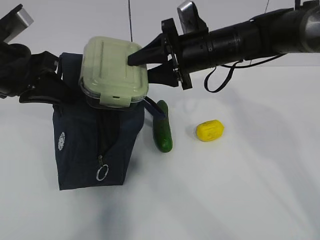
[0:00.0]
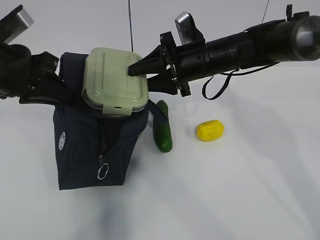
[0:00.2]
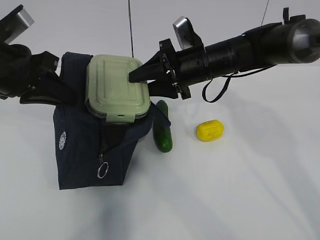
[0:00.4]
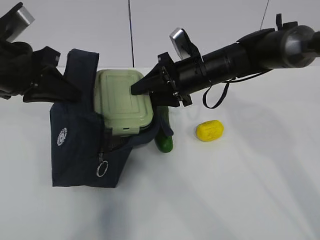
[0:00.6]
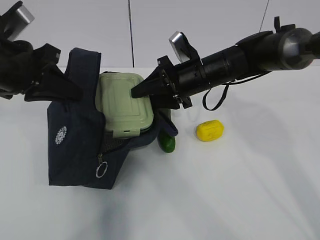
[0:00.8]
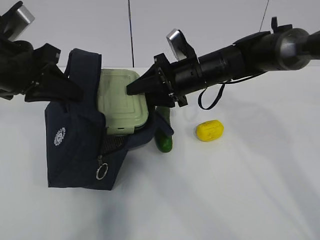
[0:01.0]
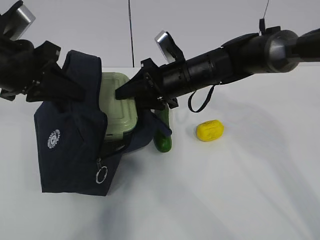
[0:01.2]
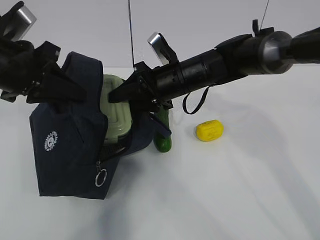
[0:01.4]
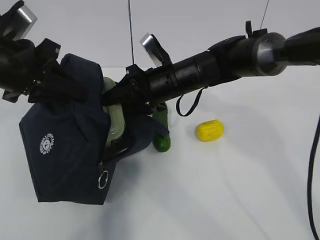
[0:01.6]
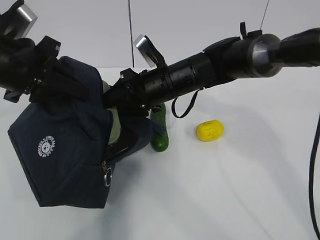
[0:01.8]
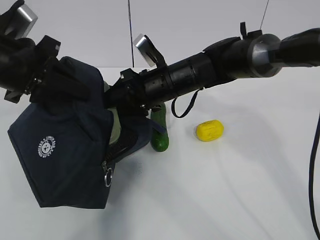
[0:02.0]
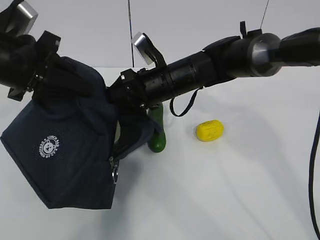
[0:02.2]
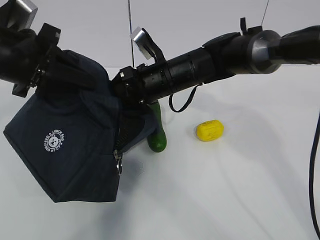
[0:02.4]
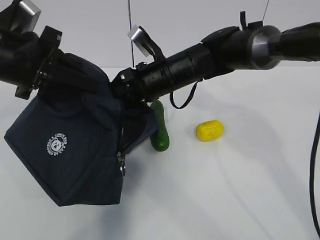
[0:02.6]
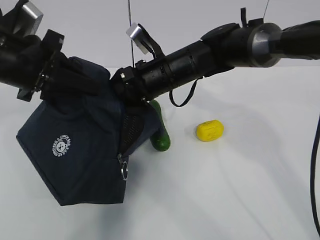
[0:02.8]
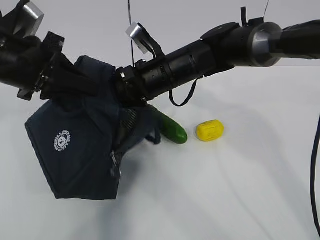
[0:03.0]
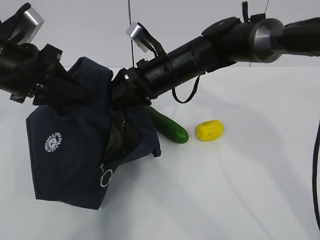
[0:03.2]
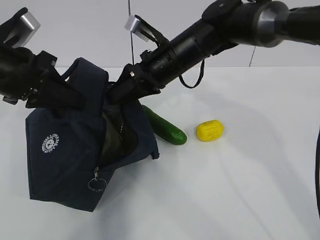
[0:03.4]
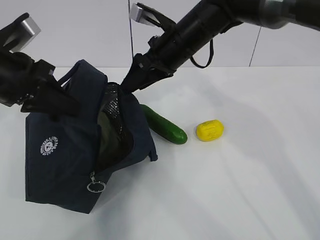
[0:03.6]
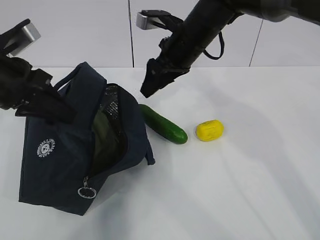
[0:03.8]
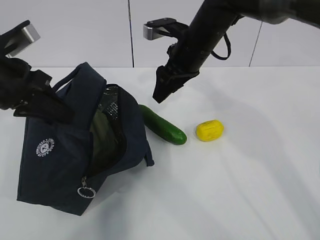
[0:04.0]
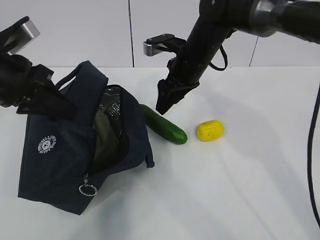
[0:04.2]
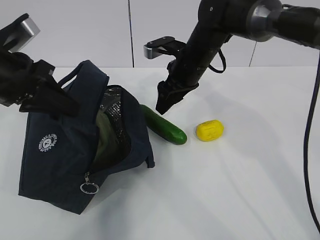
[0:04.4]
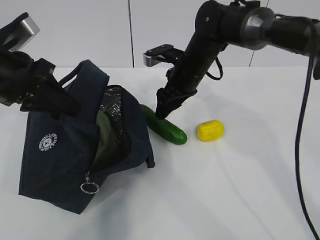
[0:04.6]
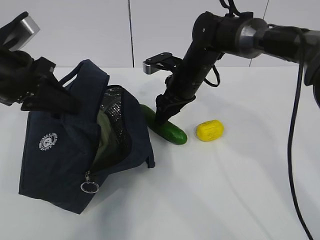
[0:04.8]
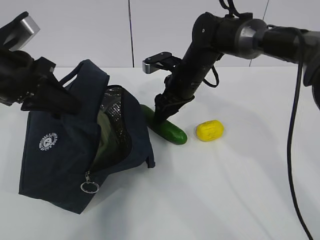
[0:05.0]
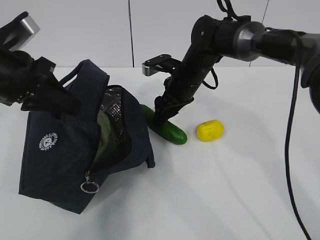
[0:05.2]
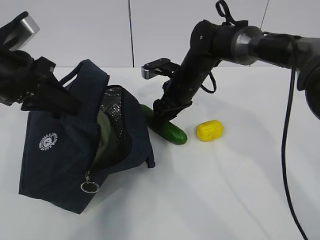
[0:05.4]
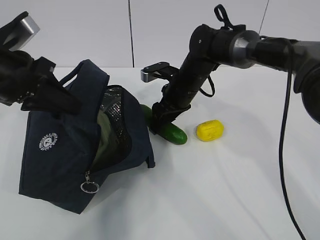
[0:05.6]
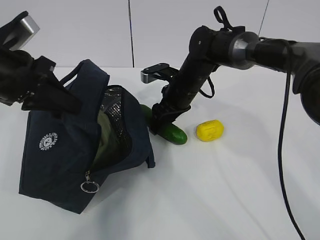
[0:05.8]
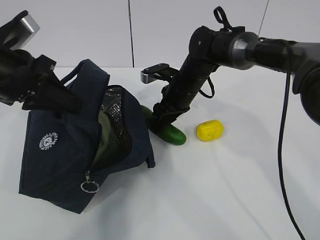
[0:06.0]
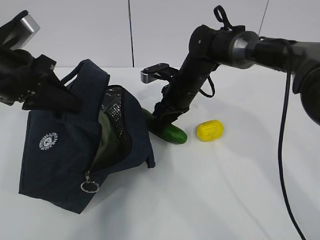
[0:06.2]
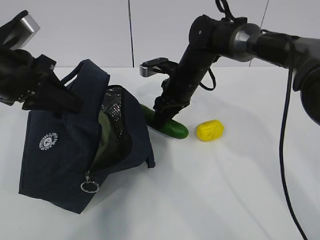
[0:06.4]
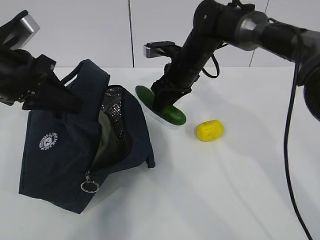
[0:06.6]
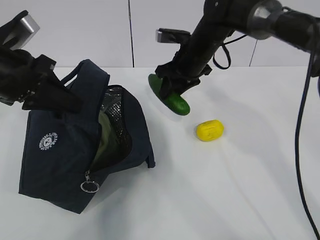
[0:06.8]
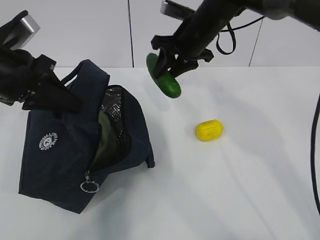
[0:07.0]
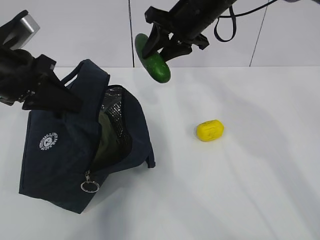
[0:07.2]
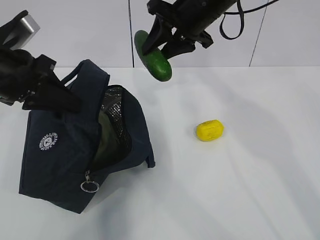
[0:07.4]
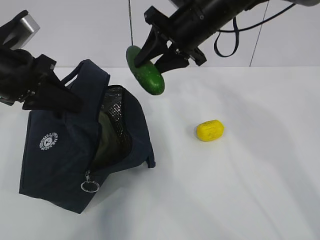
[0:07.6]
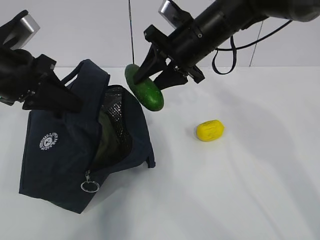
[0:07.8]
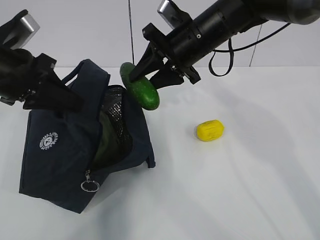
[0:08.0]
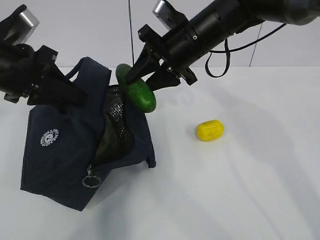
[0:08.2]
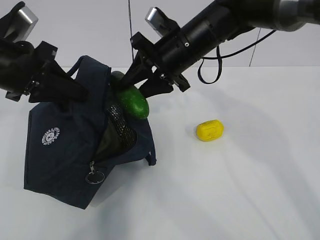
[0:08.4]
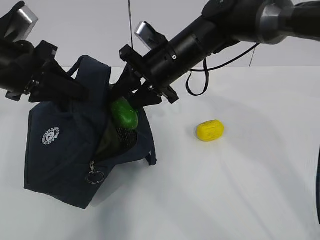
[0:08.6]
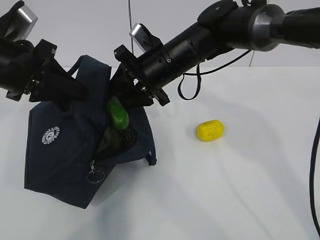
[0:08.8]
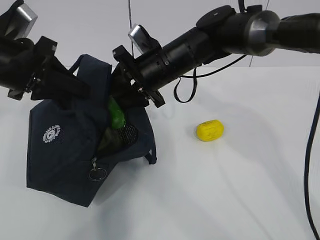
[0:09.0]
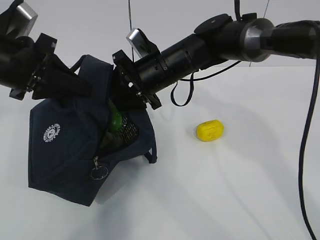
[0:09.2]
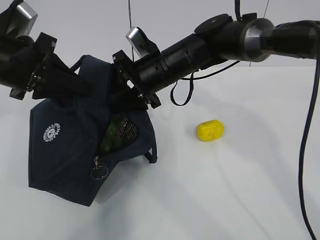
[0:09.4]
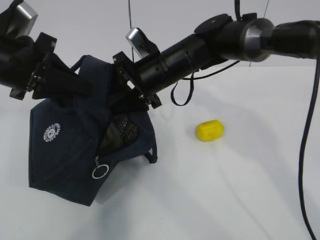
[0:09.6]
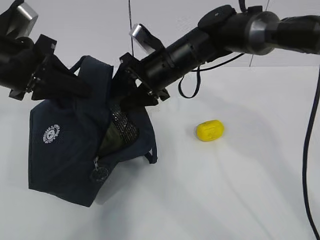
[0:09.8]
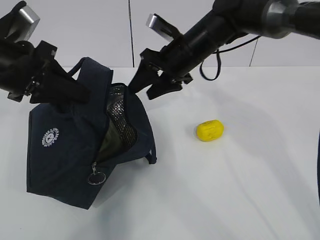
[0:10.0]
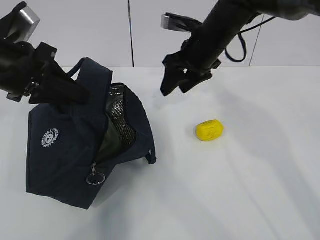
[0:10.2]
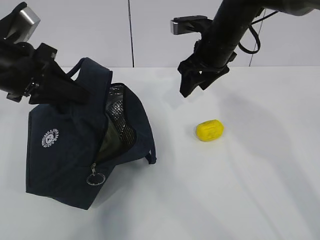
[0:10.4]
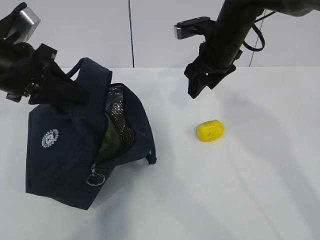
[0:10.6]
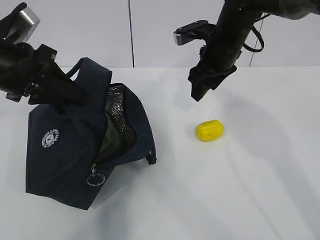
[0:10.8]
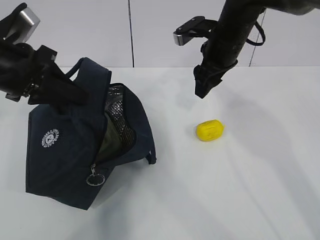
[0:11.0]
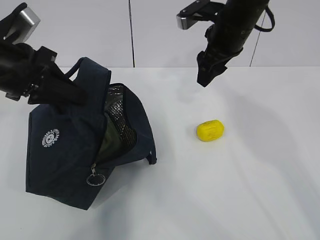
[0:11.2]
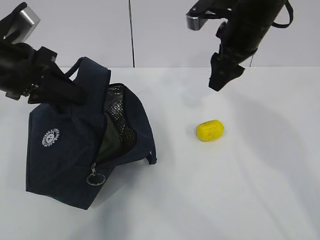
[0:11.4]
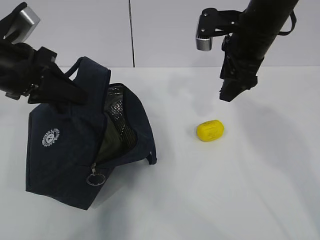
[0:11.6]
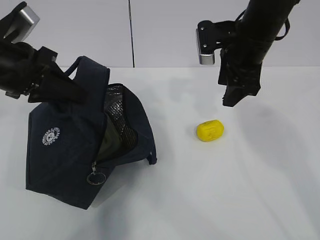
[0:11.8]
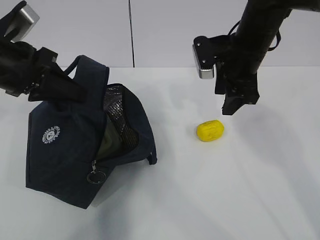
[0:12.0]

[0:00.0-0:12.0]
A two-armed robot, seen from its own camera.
Step, 0:00.0 to 0:01.8: Grab the cucumber with your right hand.
Step, 0:02.0 to 0:04.8: Place it into the bag with your right hand.
Step, 0:05.0 to 0:08.2: Grab the lemon with your right hand.
0:00.0 to 0:01.6: The right gripper shifts roughly 10 cm to the left and downward.
0:01.6 to 0:03.0: The grippers stay close to where they were, moving slightly.
0:03.0 to 0:04.4: The right gripper is displaced forward and to the right by some 5 cm.
0:04.4 to 0:06.0: The right gripper travels downward by some 5 cm.
0:06.0 to 0:07.6: The right gripper moves upward, some 15 cm.
0:07.6 to 0:09.0: The right gripper heads downward and to the left, covering roughly 10 cm.
0:09.0 to 0:10.4: The right gripper goes about 10 cm to the right.

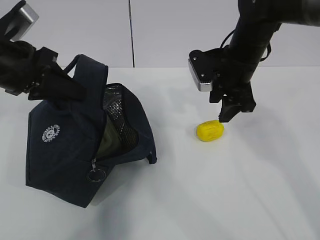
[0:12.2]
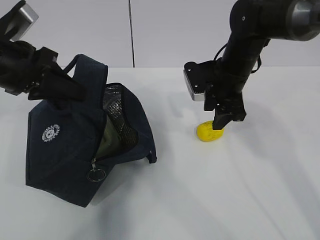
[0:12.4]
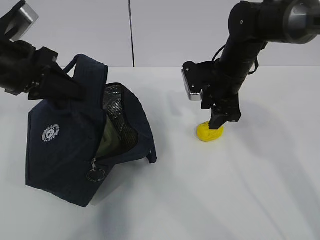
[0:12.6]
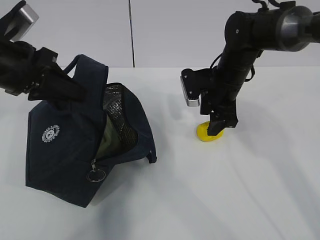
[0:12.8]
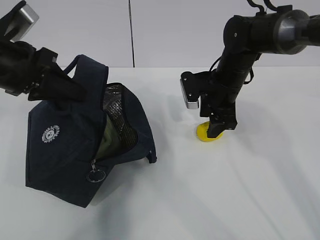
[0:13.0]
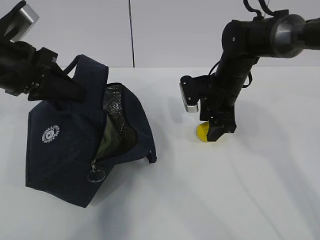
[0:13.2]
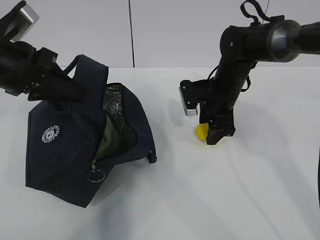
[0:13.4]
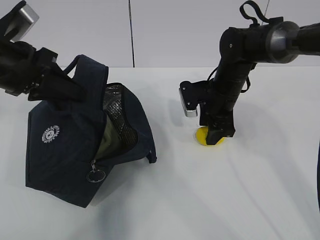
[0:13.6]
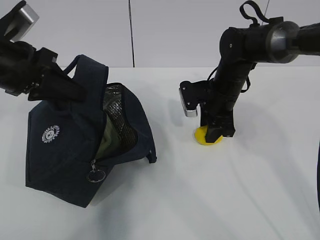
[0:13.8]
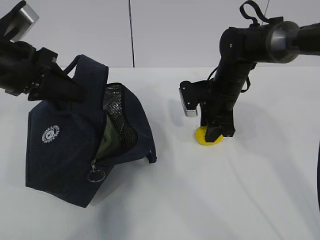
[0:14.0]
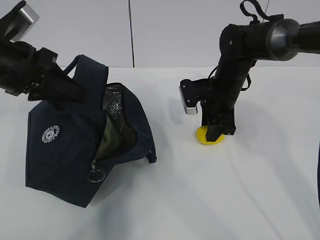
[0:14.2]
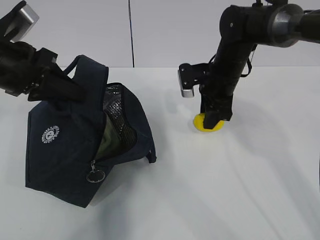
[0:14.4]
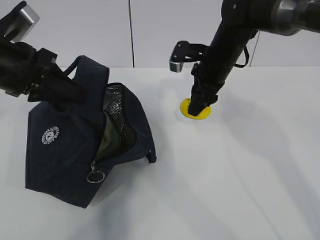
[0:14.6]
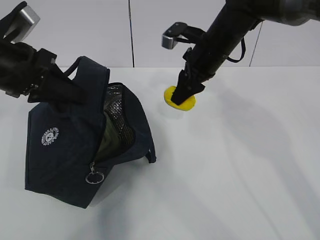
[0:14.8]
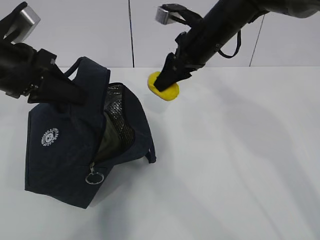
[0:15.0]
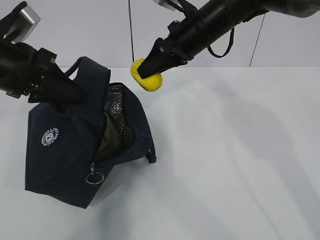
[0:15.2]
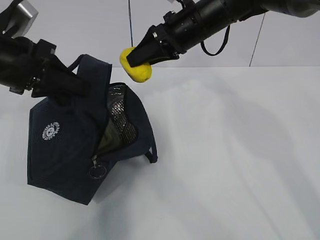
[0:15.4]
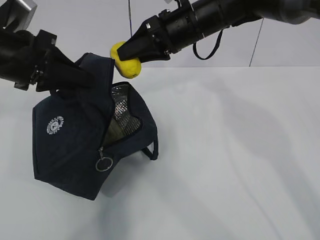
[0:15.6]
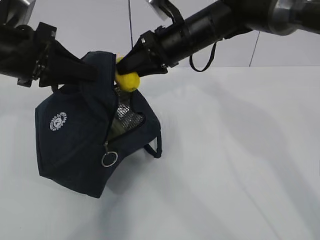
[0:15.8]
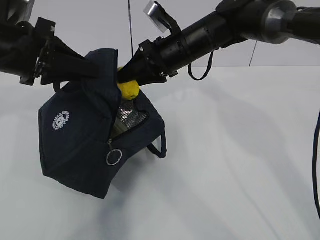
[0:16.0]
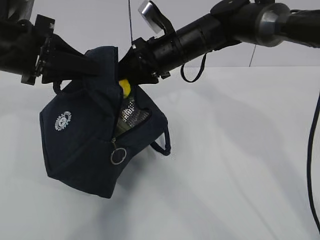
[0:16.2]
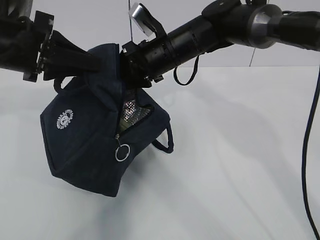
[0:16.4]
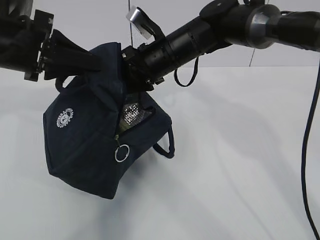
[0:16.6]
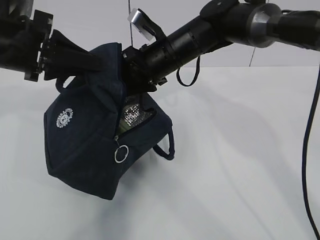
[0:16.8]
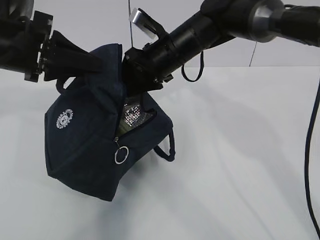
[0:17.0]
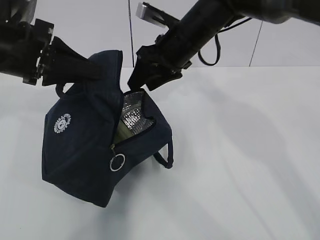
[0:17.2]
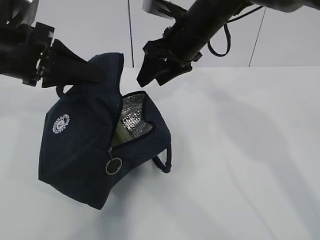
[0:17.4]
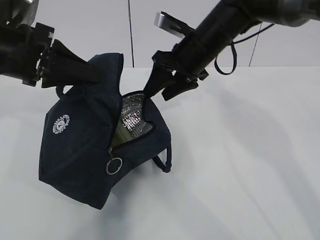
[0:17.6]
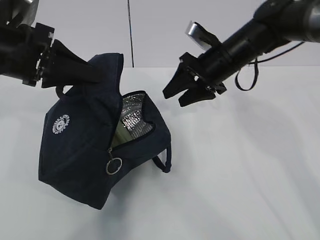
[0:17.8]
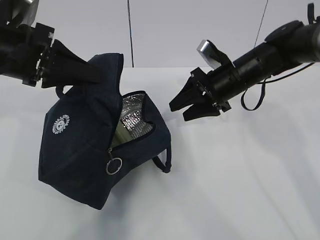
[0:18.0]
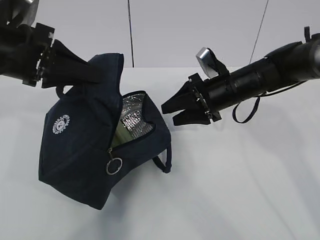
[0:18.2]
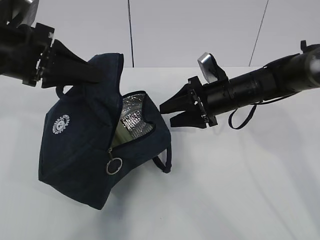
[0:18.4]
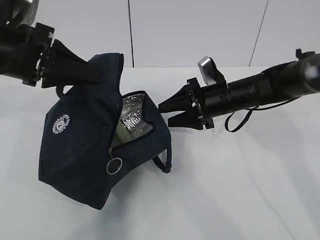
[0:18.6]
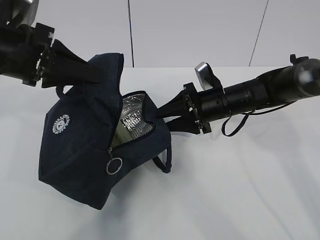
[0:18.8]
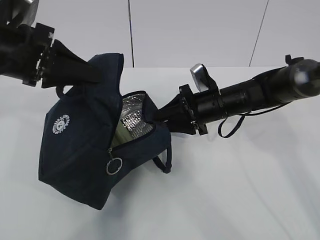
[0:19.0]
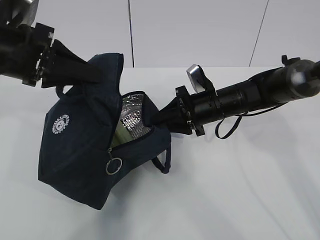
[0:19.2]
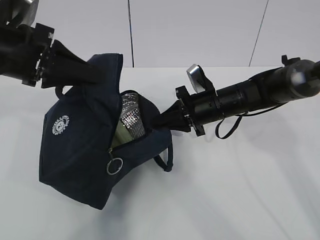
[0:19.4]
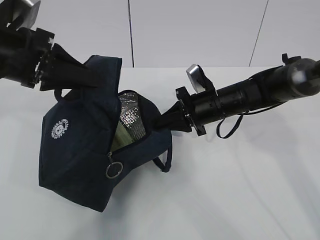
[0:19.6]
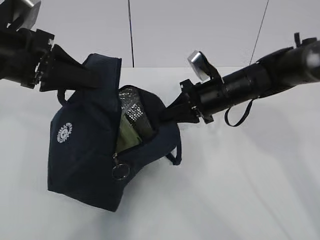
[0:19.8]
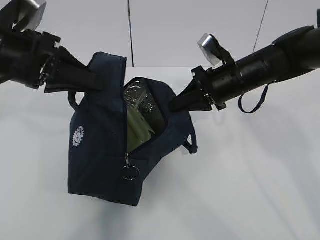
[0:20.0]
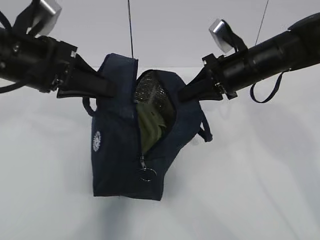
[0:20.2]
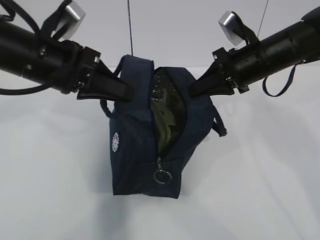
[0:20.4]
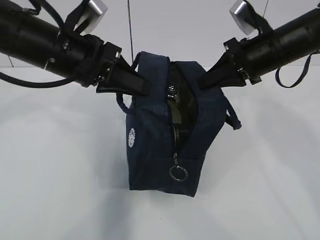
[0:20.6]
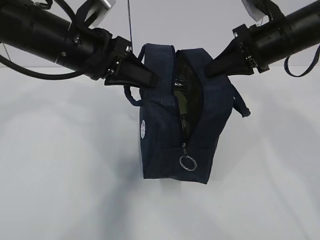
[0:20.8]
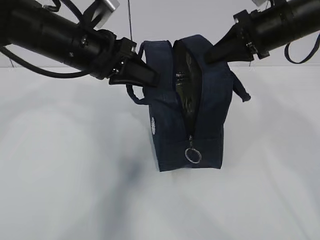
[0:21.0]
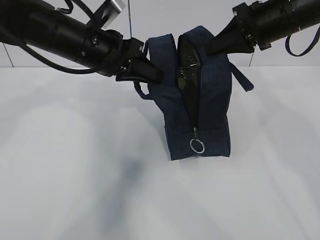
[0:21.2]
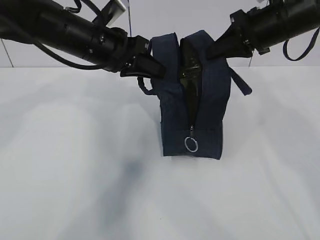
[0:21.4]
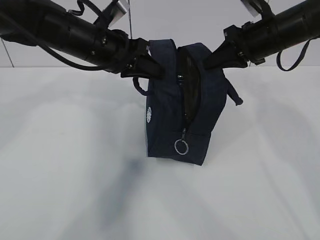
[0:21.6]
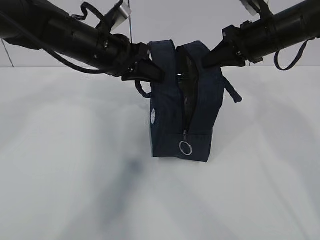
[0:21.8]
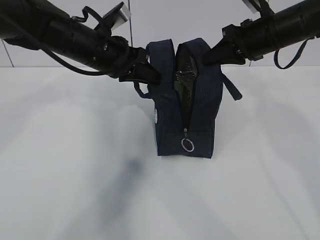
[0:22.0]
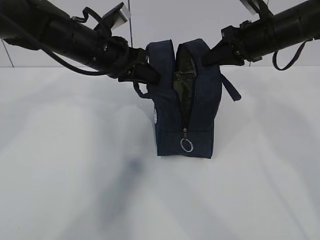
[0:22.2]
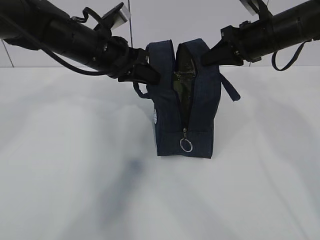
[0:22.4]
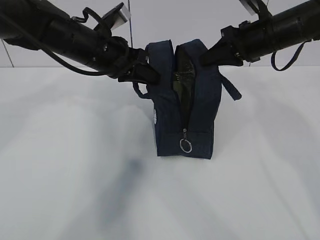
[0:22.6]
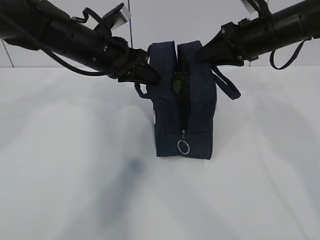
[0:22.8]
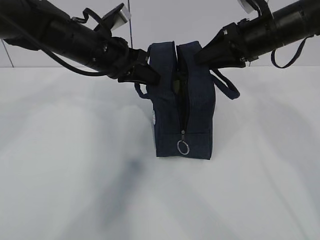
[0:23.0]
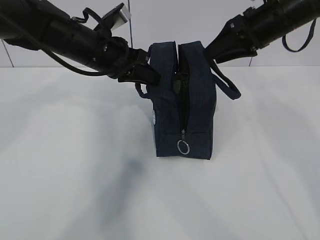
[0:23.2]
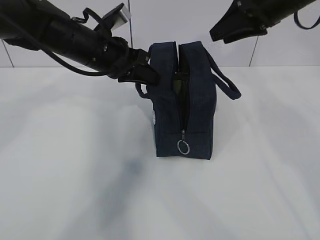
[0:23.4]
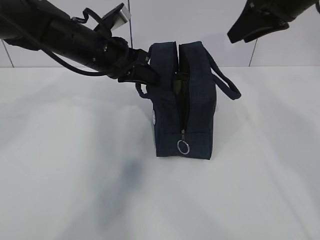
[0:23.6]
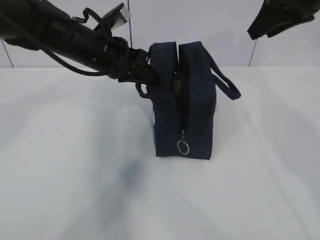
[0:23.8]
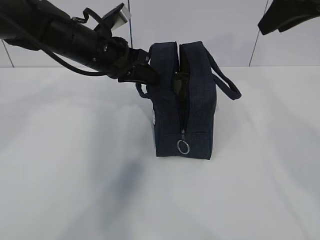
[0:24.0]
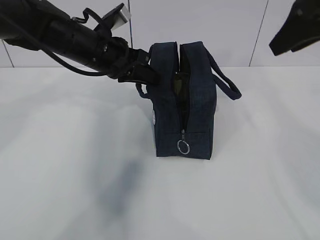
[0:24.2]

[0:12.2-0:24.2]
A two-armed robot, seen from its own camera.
Step, 0:13.2 to 0:15.6: Move the lunch bag to the right.
Step, 0:15.8 to 0:22.4: Grab the lunch bag with your left hand.
0:12.2 to 0:13.8: The right gripper travels downward by about 10 cm.
0:13.8 to 0:15.2: The right gripper heads upward and to the left, covering some 15 cm.
0:15.2 to 0:16.6: The right gripper goes roughly 5 cm to the left.
0:16.6 to 0:18.2: The right gripper goes about 15 cm to the right and downward.
0:18.2 to 0:19.8: The right gripper closes up.
0:19.8 to 0:21.2: The right gripper moves upward and to the right, some 15 cm, while the left gripper heads to the right and forward, covering roughly 10 cm.
0:21.2 to 0:22.6: The right gripper ends up roughly 5 cm from where it was.
0:22.6 to 0:24.2: The right gripper moves upward and backward, some 15 cm, and opens up.
